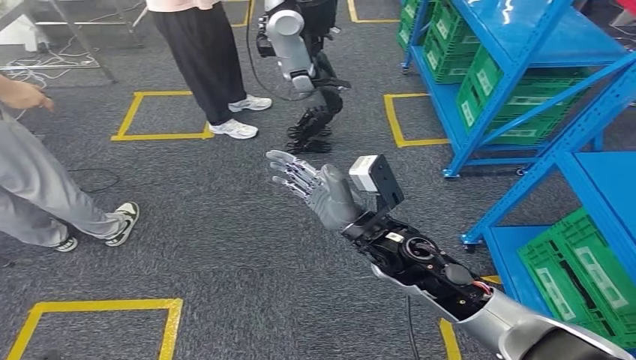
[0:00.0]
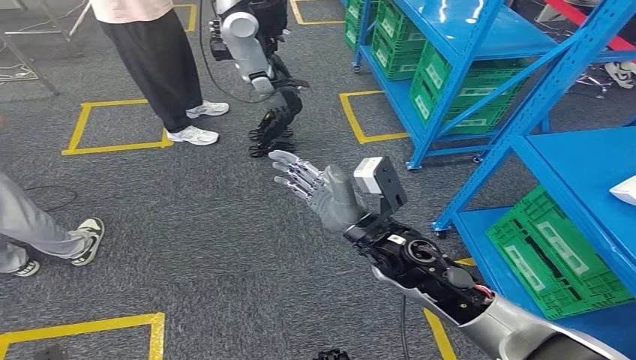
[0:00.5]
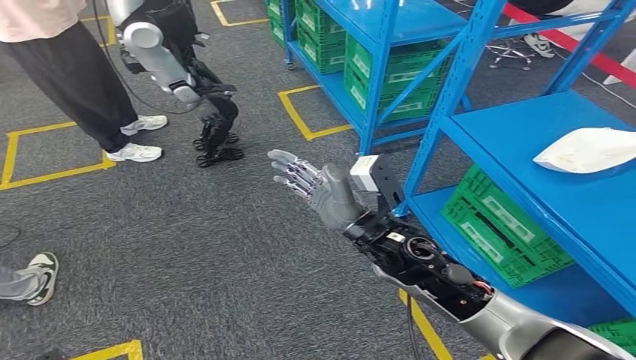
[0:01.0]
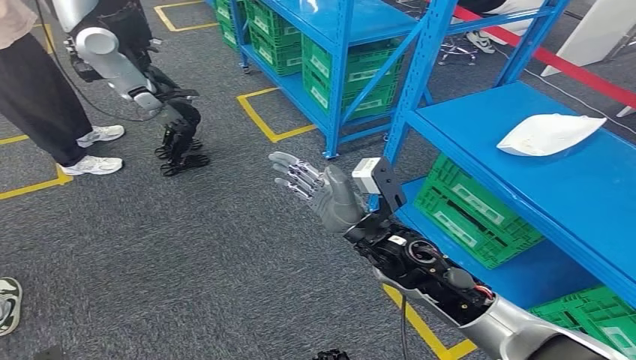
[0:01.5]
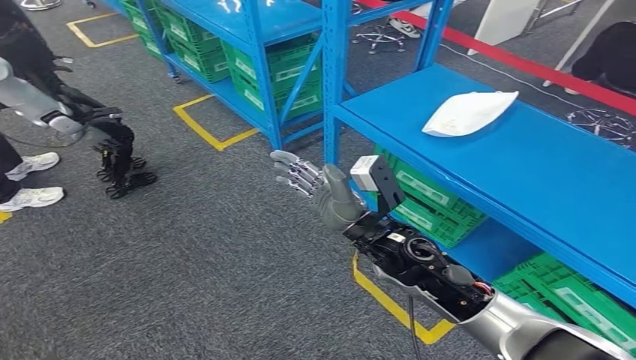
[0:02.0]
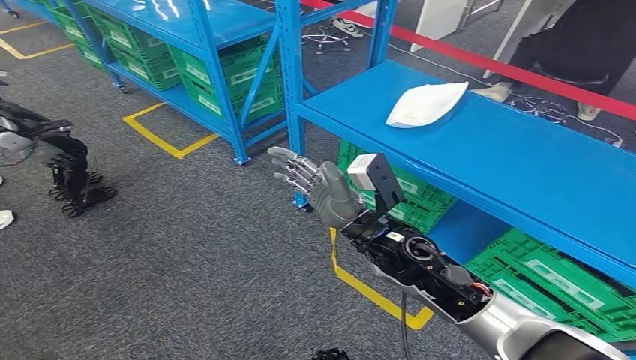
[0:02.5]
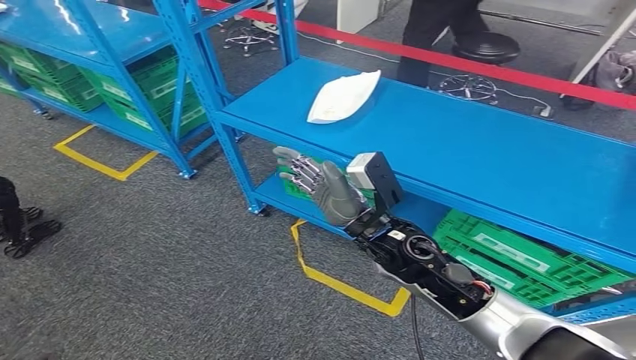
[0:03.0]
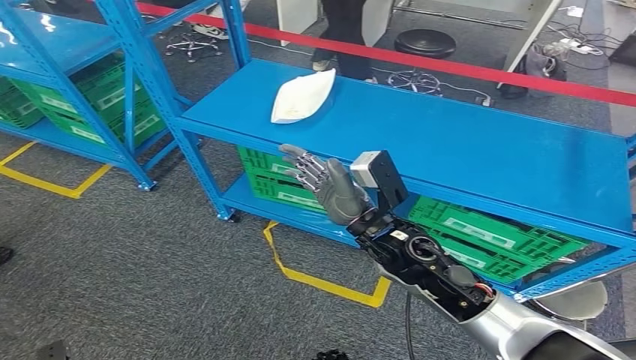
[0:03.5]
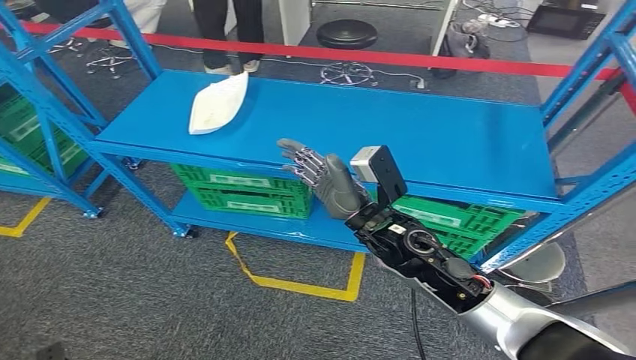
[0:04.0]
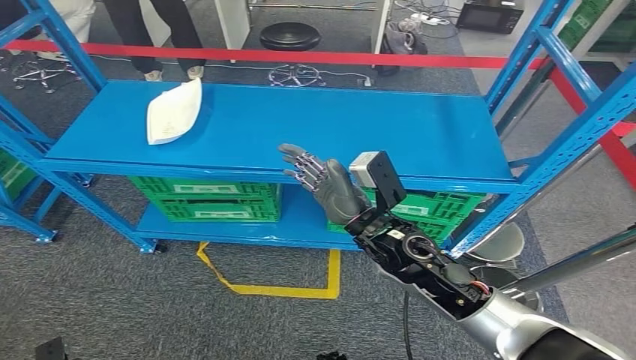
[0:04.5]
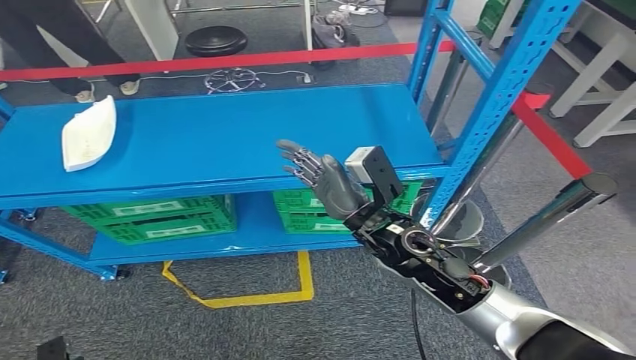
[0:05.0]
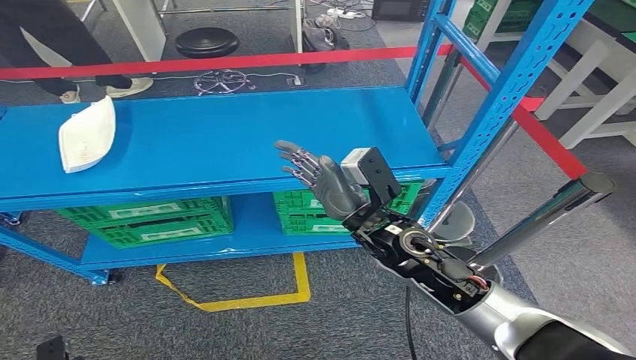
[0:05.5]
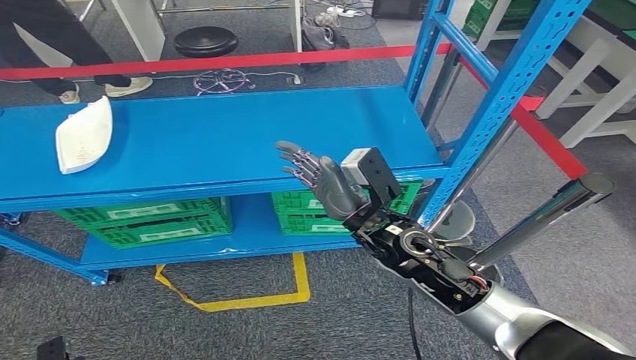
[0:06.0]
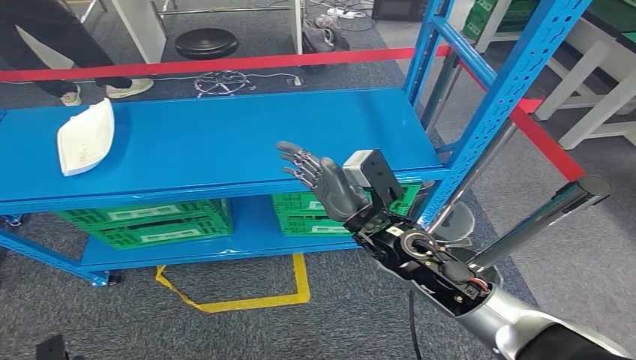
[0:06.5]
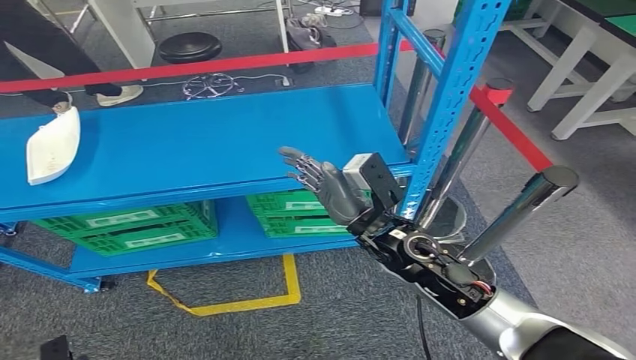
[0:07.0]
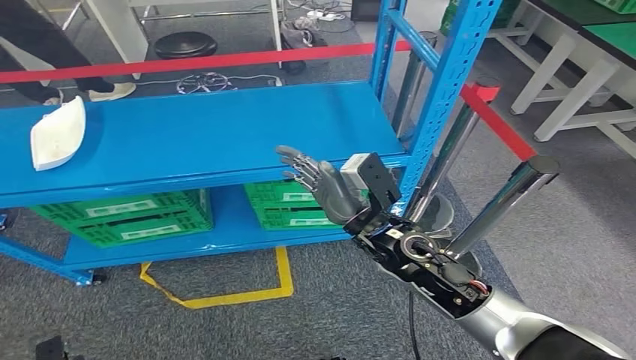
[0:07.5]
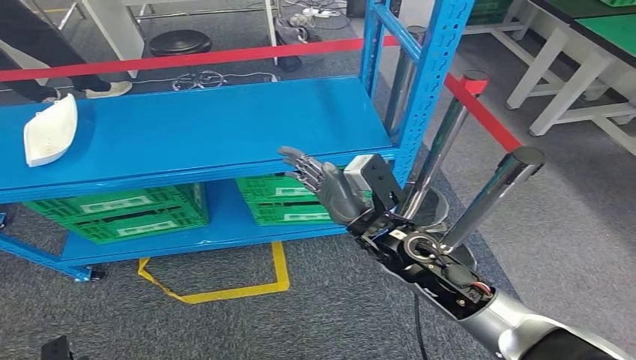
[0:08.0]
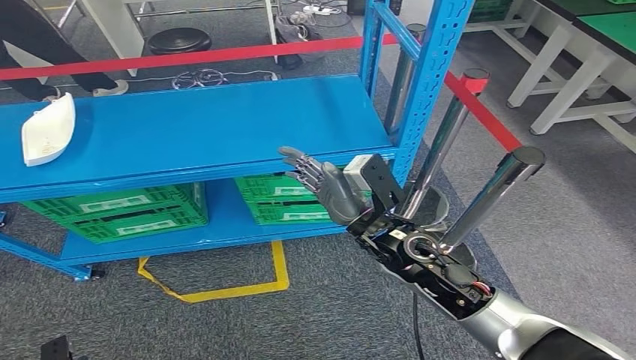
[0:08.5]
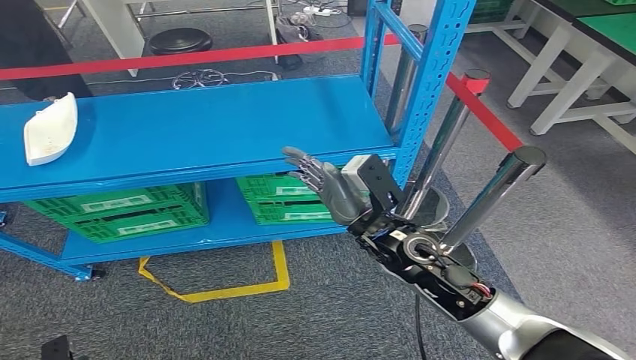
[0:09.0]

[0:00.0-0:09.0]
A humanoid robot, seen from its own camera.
Step, 0:00.0 to 0:09.0: Move to the initial position of the workbench.
